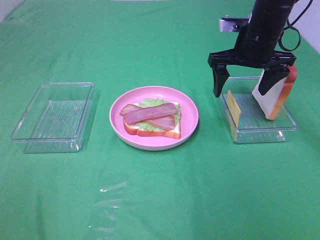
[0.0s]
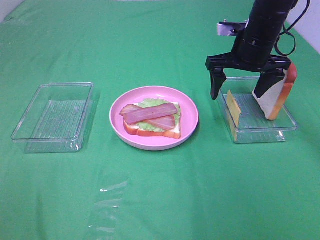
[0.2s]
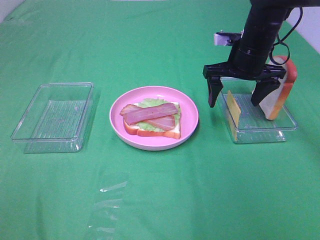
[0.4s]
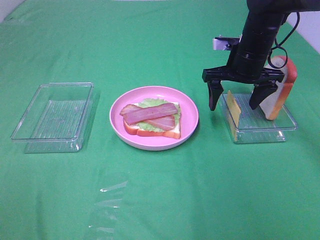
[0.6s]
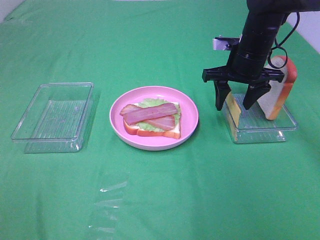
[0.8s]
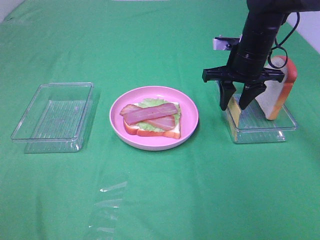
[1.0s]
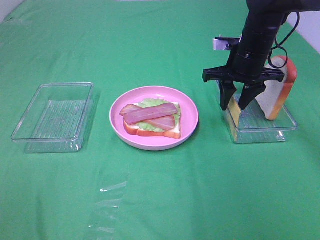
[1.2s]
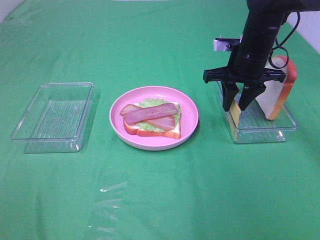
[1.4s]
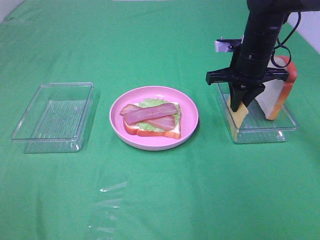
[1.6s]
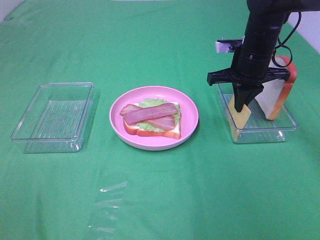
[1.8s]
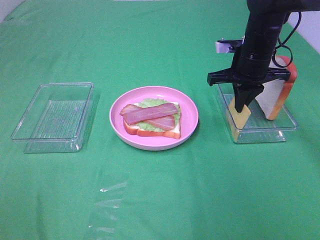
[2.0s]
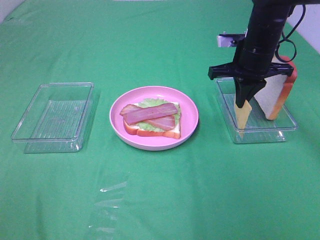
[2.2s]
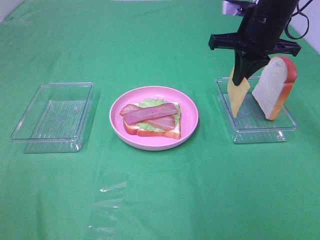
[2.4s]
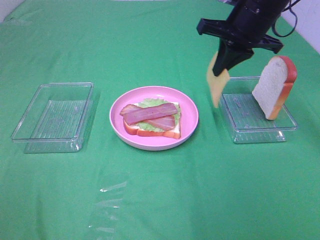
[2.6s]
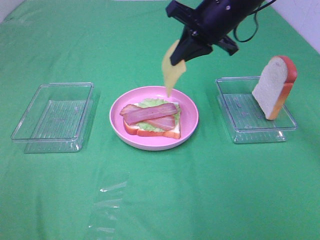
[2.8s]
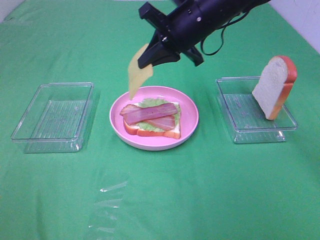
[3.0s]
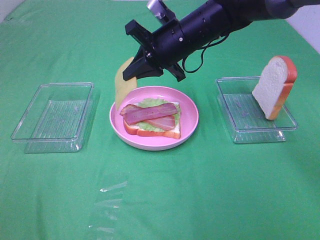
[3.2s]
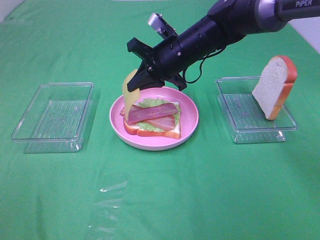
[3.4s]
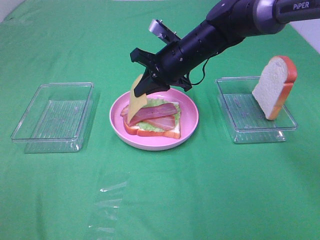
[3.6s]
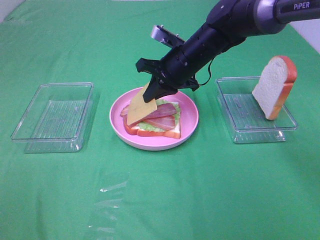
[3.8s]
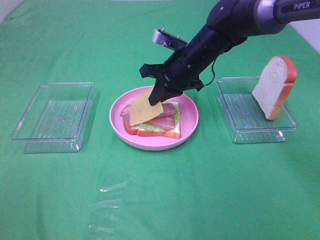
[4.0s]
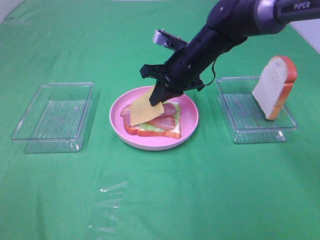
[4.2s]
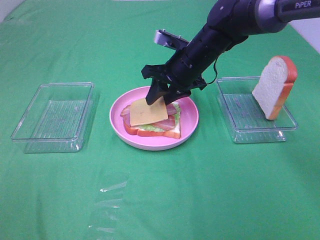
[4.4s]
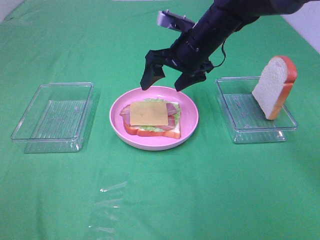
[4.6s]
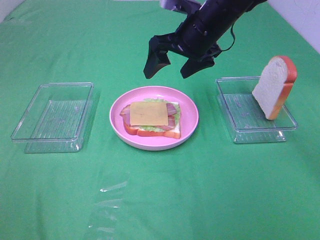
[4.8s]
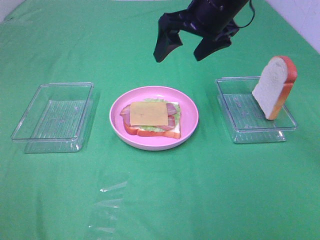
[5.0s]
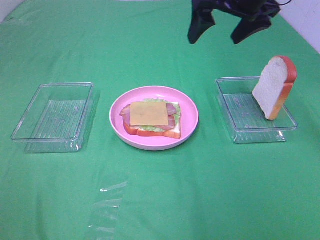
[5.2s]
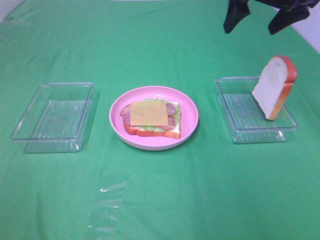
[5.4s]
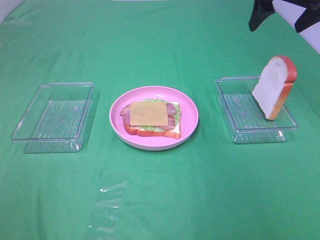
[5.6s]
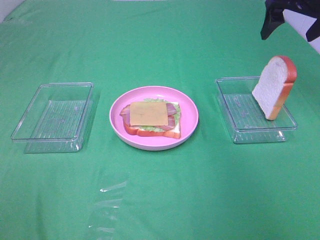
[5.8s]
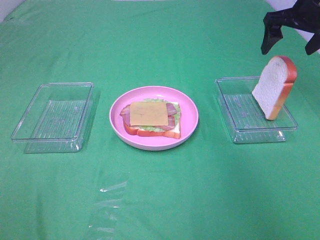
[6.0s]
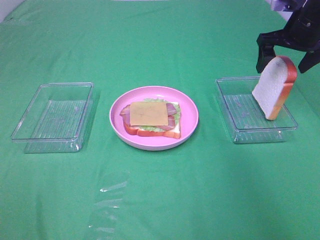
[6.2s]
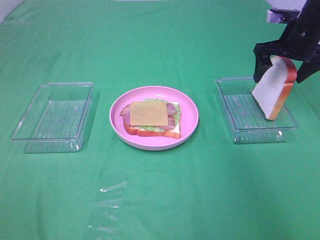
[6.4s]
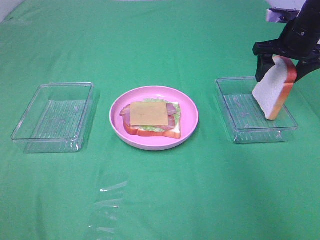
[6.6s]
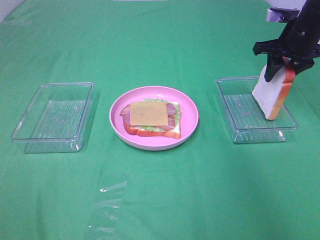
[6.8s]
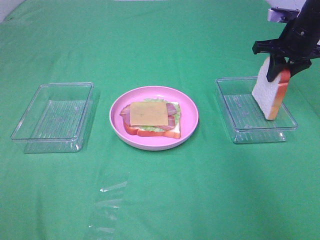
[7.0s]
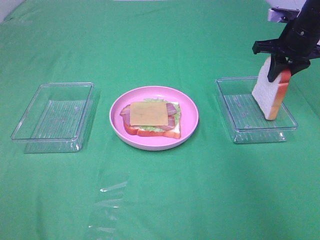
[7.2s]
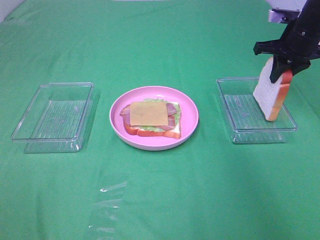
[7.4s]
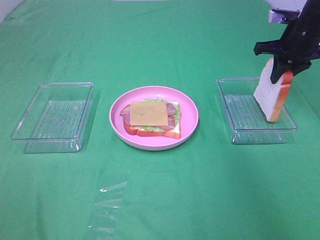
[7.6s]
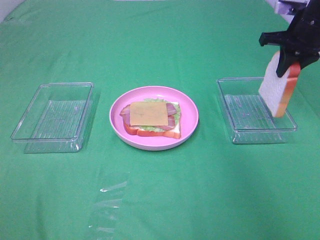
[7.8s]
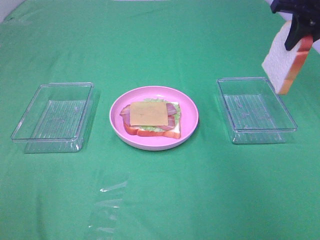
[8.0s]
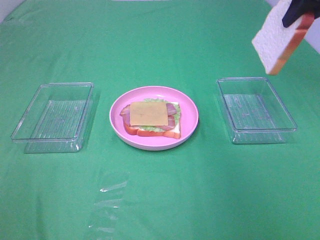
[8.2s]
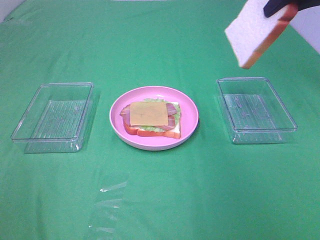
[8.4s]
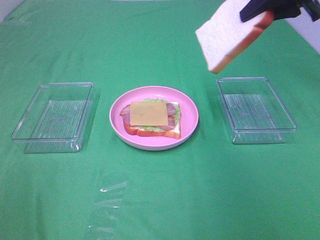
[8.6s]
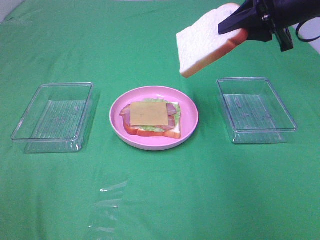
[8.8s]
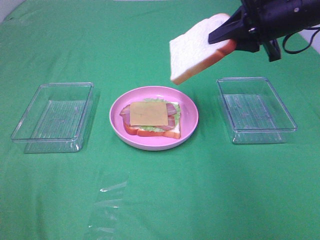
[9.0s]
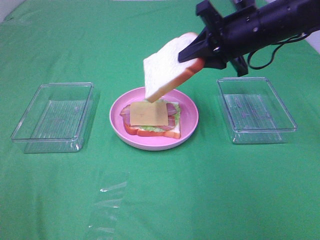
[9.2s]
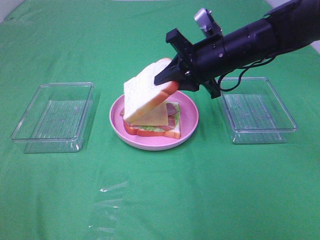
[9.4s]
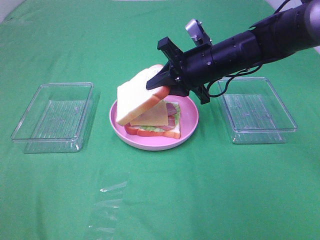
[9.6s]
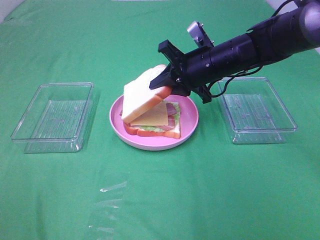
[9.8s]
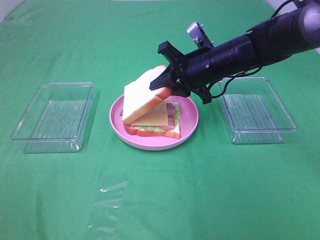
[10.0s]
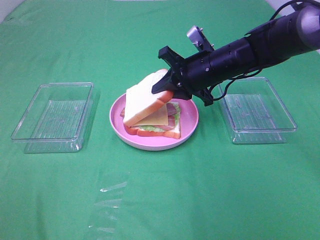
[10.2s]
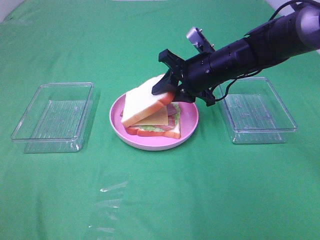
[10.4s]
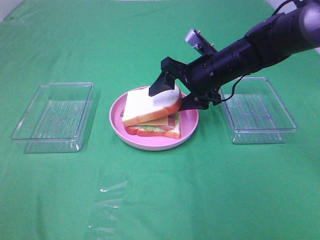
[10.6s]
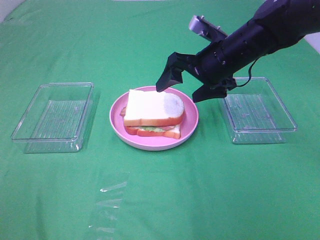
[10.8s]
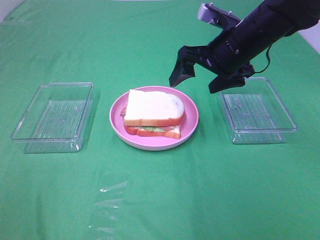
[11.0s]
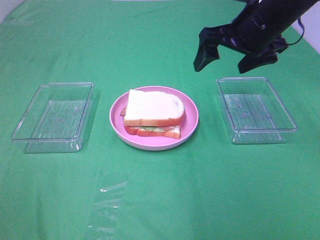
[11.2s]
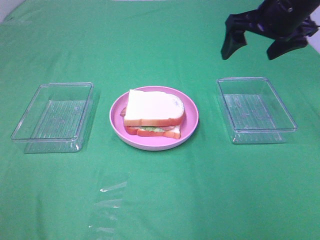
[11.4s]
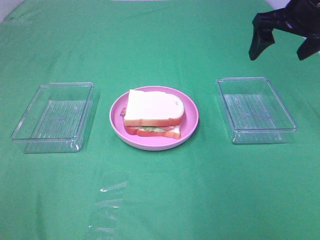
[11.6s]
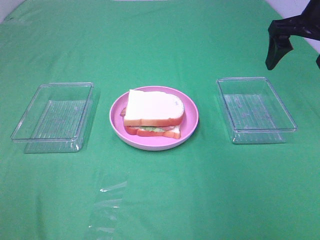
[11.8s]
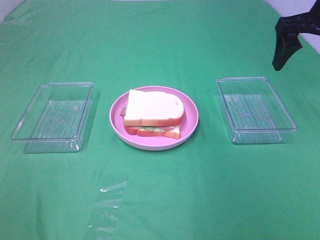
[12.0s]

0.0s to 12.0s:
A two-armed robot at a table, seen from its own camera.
Task of the whole recording: Make sandwiches.
Step, 0.0s to 1.8s: Right hand:grab the cheese slice.
Step, 2.0s to 4.6s: Right hand:place the cheese slice on top of the bacon.
Step, 4.8s to 7.4s: Right hand:grab the bread slice.
Step, 7.6s to 10.8s: Right hand:place the bread slice on the cheese slice.
0.0s to 1.6s: The right gripper closes up.
1.6s to 3.0s: The right gripper is displaced to the left and upward by some 15 cm.
3.0s to 4.4s: The right gripper heads downward, covering some 10 cm, and opens up.
4.4s to 6.0s: The right gripper goes some 25 cm to the right and upward, and opens its fingers.
6.0s to 7.6s: The right gripper shifts about 5 cm downward, and closes up.
7.6s to 9.0s: The right gripper moves to the left, backward and upward, about 15 cm.
9.0s to 10.4s: The right gripper travels downward and to the left by about 15 cm.
10.4s to 12.0s: The right gripper goes roughly 20 cm upward and to the right, and opens.

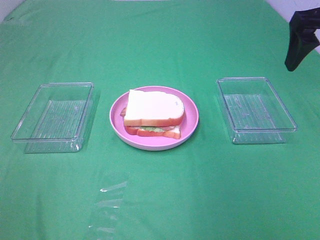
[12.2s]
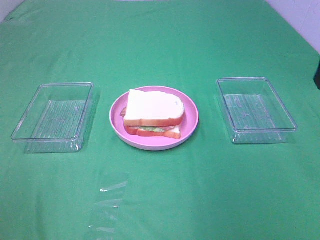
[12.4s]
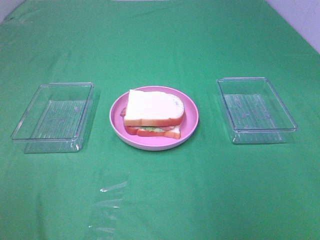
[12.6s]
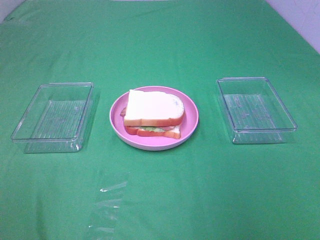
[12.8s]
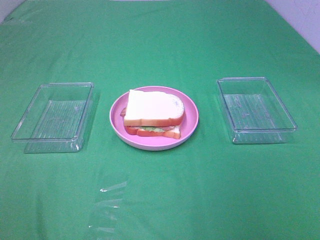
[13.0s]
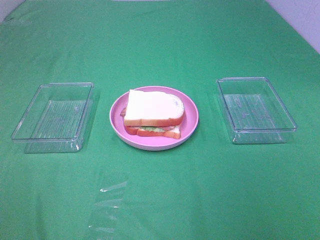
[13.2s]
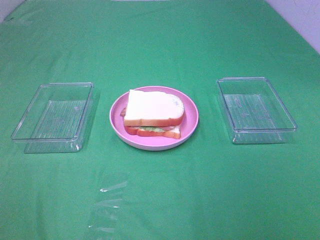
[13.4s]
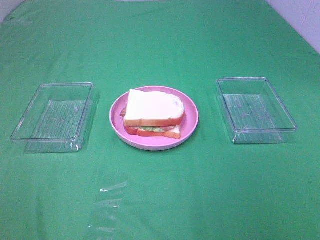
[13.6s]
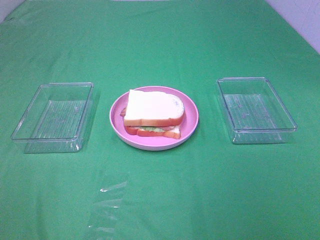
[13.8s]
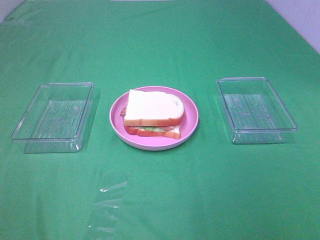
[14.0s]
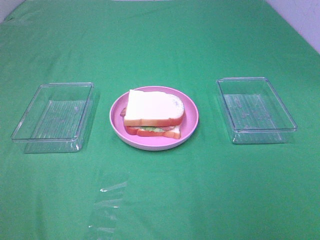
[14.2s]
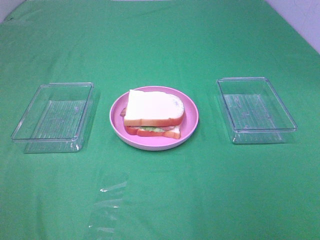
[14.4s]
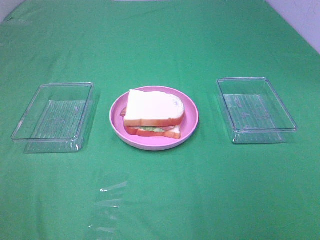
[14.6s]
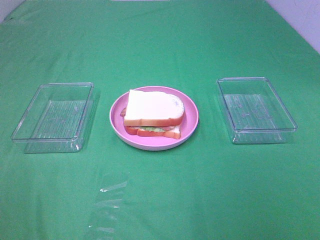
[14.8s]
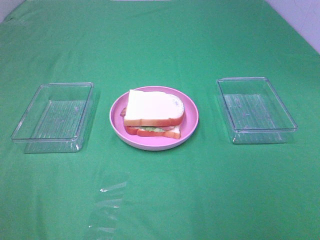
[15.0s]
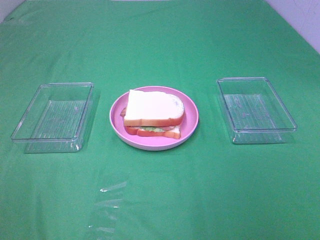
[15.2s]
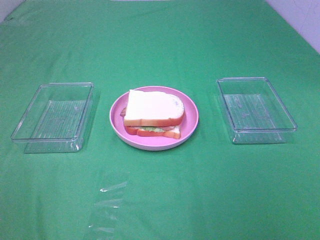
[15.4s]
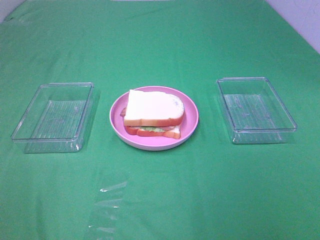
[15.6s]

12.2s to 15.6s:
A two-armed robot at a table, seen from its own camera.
Task of the whole recording: Make sandwiches.
12.2s to 13.8s: The right gripper goes approximately 35 cm backward.
13.8s to 15.6s: The two grippers keep their place.
